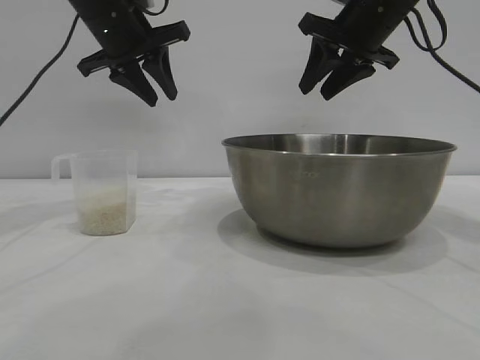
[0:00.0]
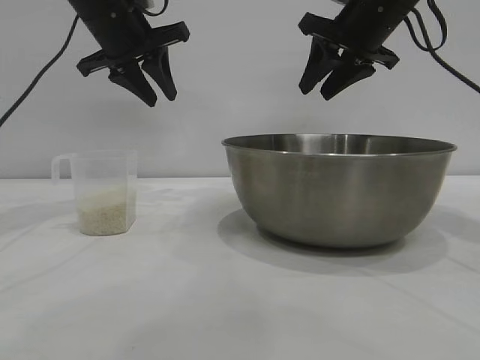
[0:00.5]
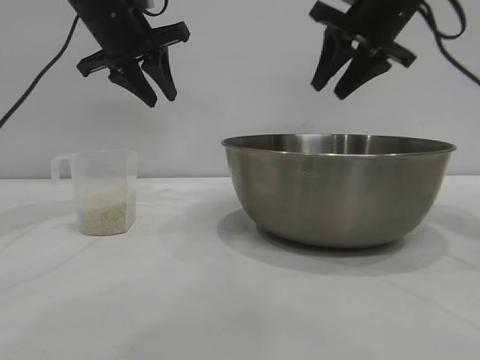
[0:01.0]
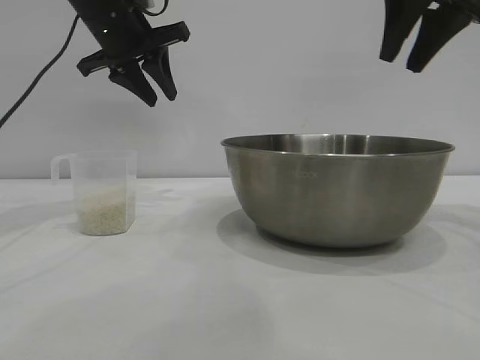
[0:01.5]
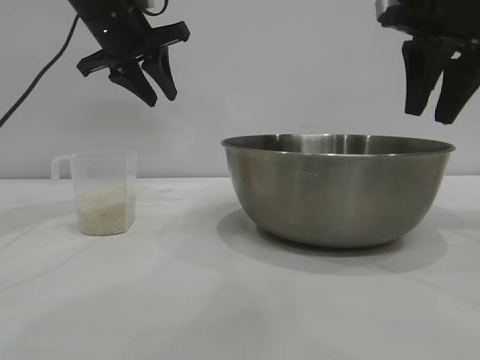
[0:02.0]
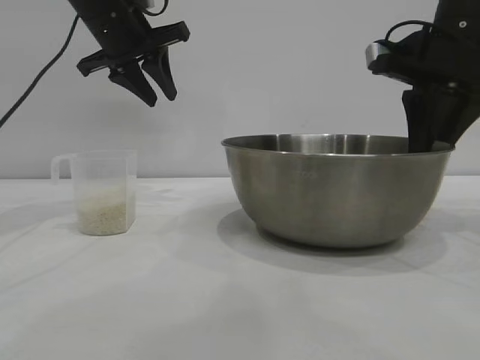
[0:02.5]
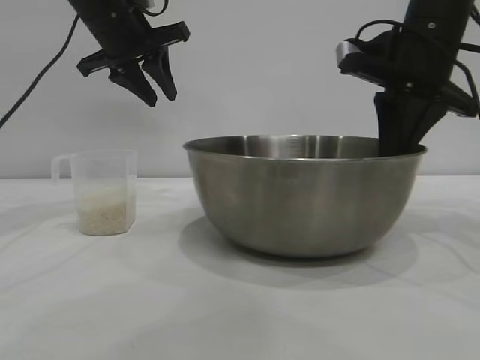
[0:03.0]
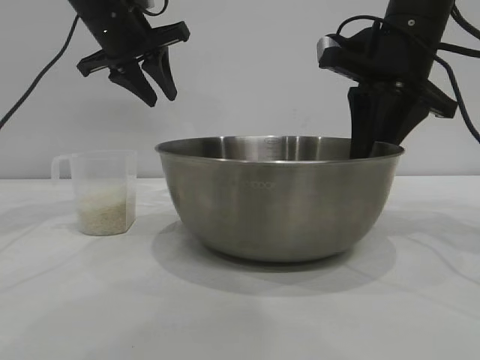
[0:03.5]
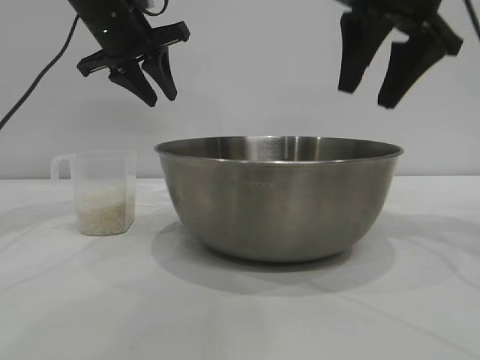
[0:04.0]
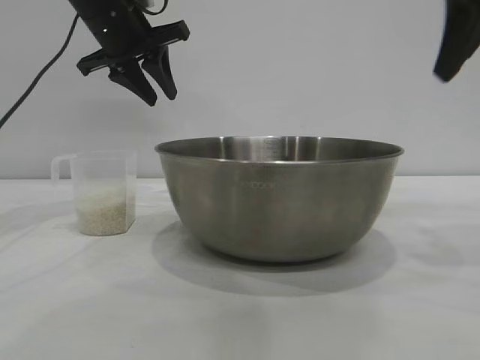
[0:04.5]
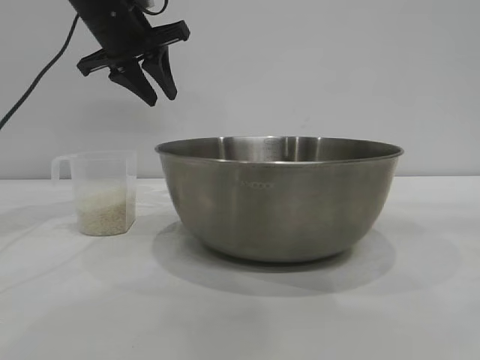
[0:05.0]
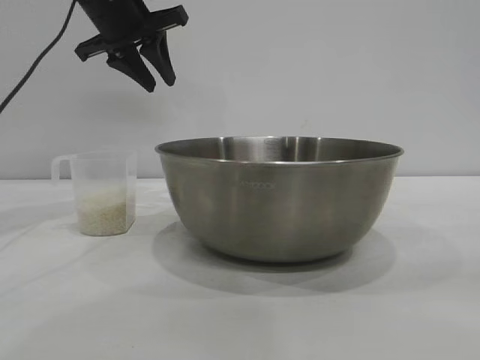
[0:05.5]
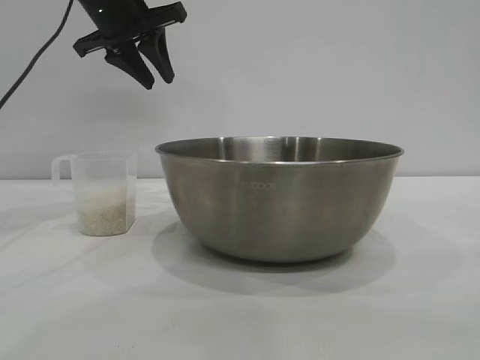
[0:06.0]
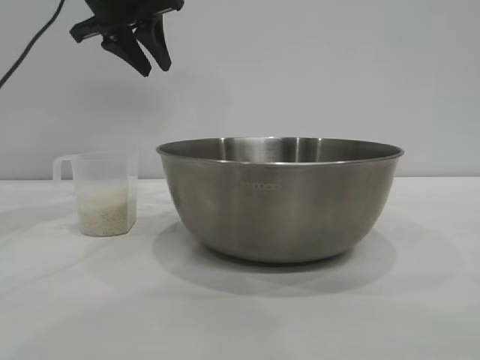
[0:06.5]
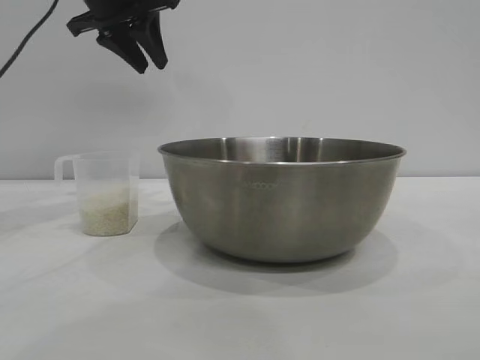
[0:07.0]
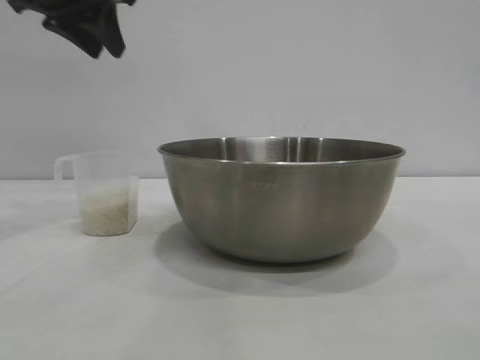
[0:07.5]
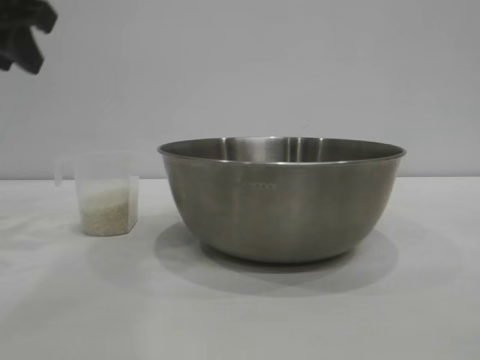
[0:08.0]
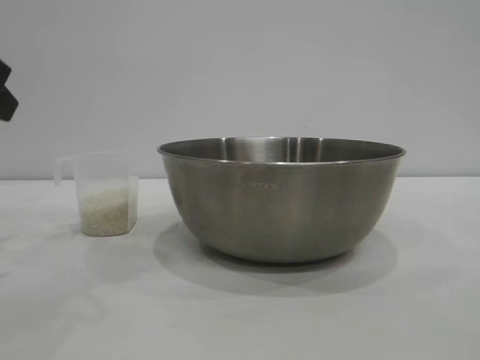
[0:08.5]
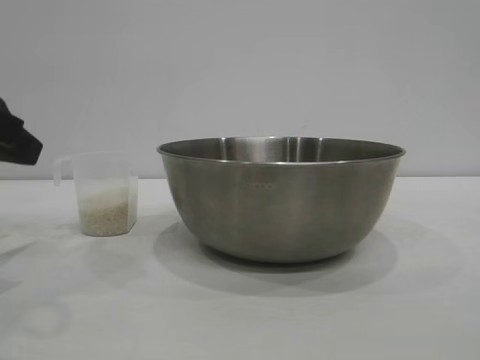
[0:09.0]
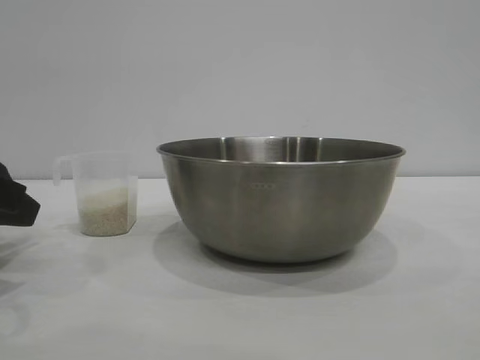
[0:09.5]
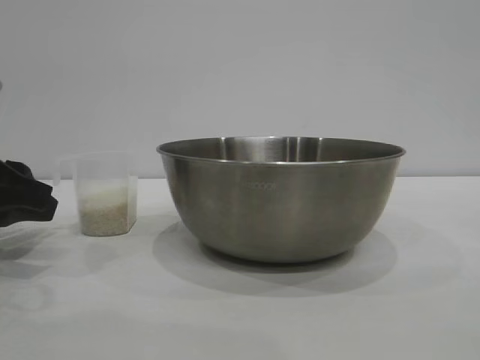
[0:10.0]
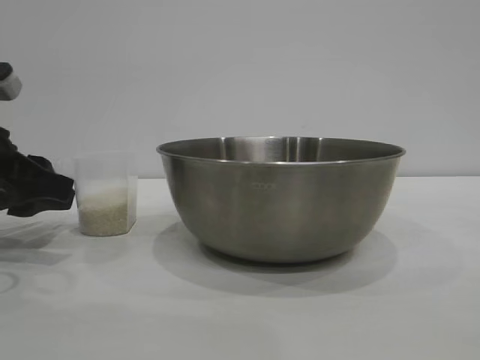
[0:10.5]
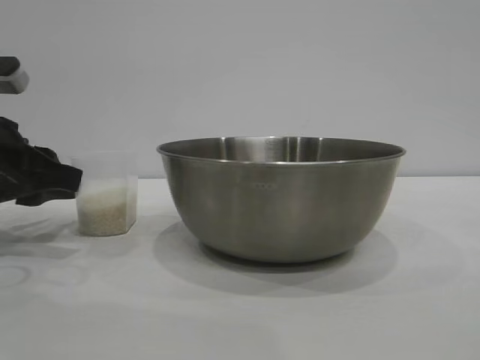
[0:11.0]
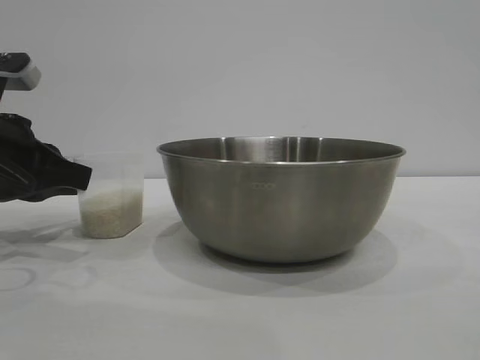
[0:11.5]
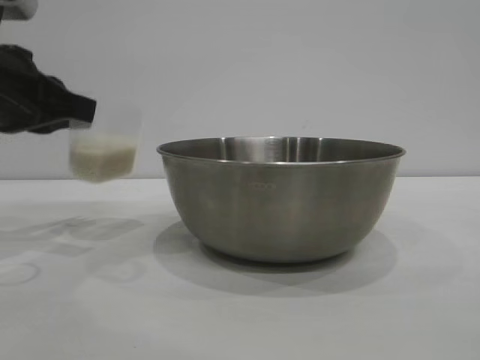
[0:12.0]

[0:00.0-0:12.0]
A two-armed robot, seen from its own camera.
Task of the whole recording: the right gripper grasp the rice container and place it in the center of the table, the left gripper grasp the rice scoop and pour the rice into the rice container.
Step, 0.0 to 4.0 s: Move the bowl to the center of view with the right gripper.

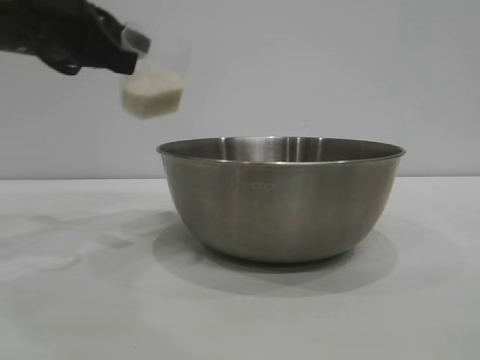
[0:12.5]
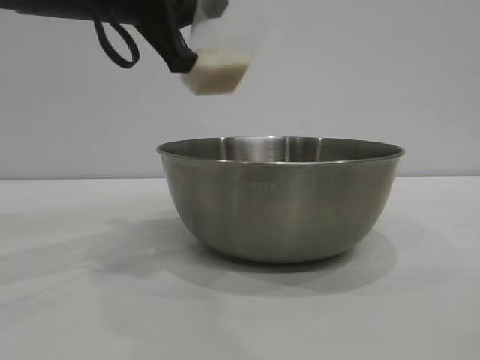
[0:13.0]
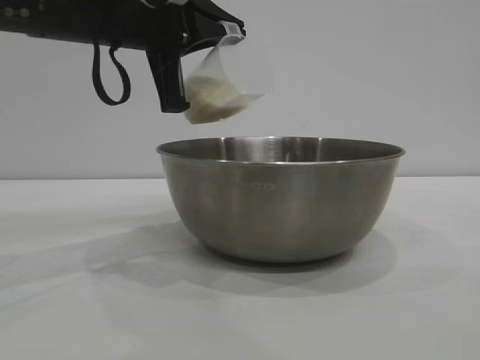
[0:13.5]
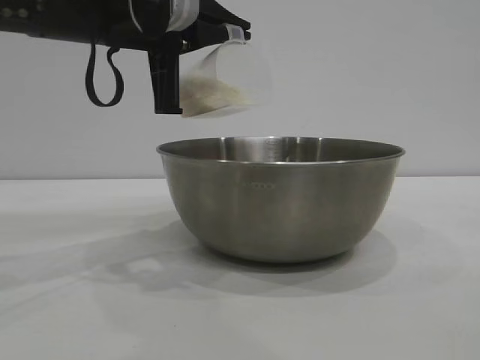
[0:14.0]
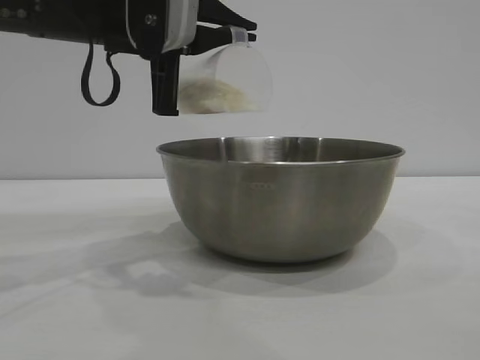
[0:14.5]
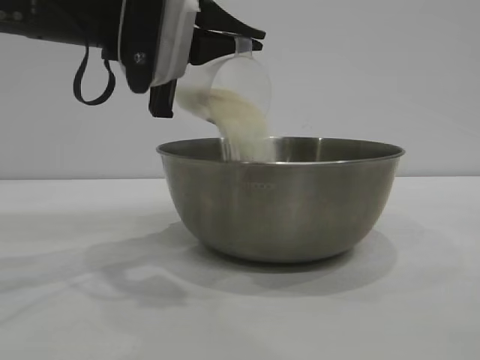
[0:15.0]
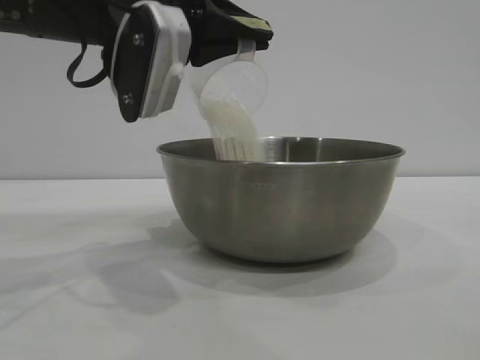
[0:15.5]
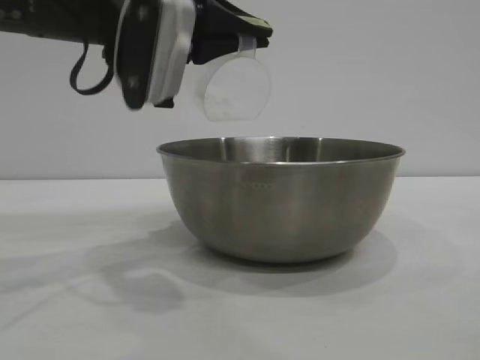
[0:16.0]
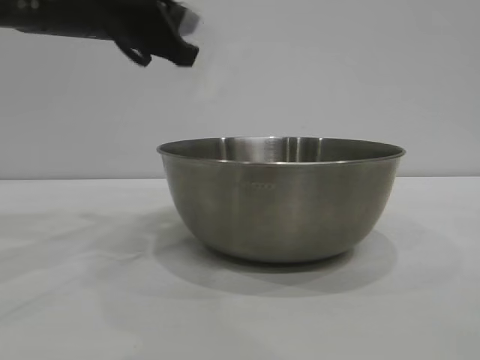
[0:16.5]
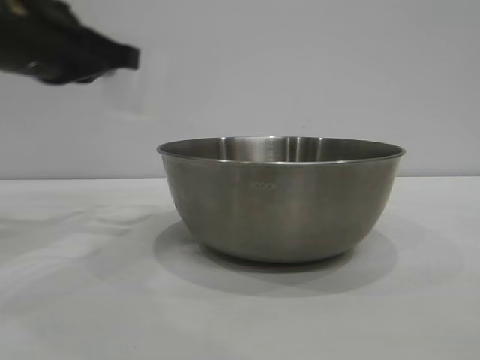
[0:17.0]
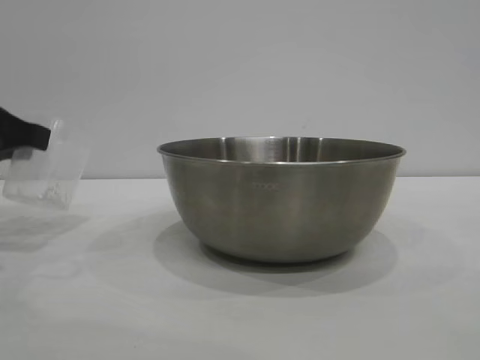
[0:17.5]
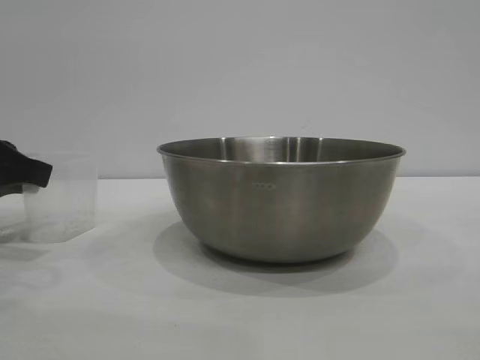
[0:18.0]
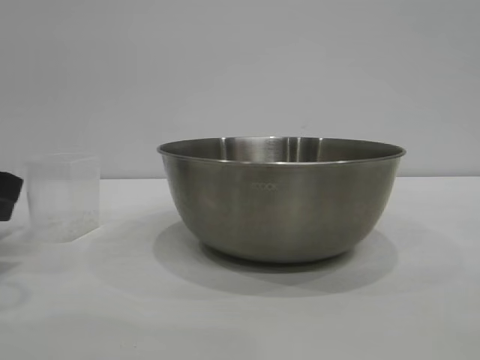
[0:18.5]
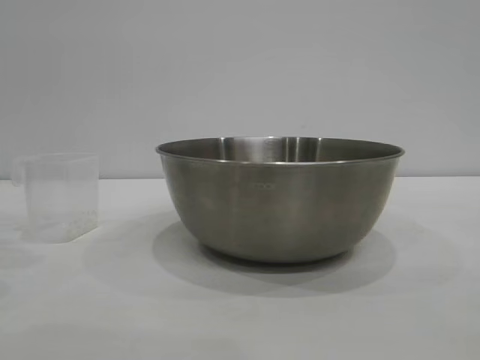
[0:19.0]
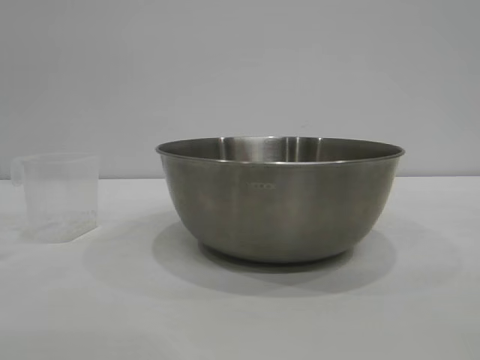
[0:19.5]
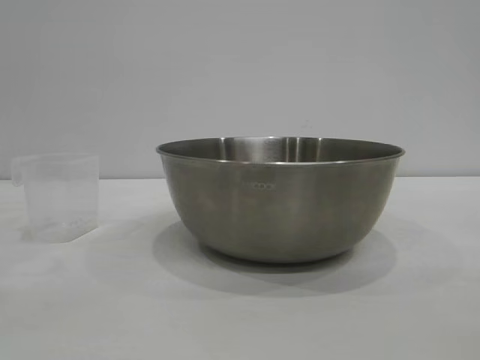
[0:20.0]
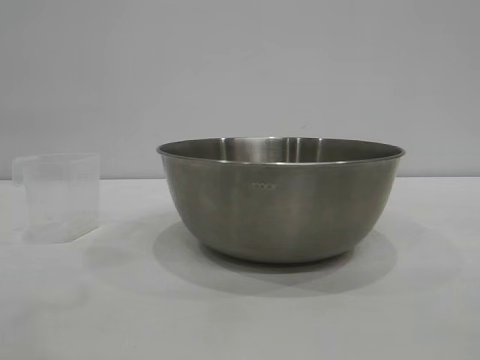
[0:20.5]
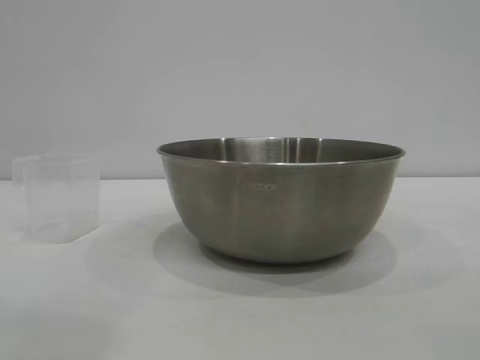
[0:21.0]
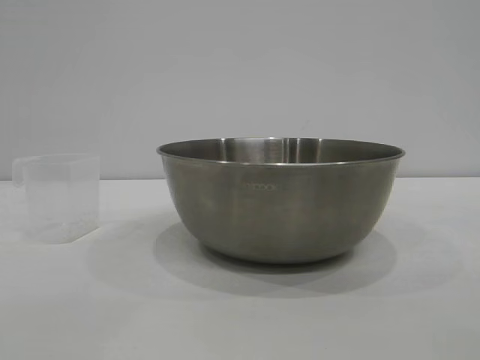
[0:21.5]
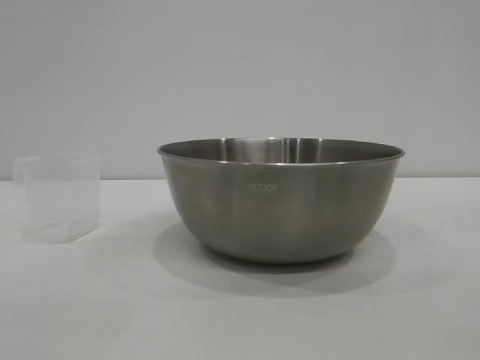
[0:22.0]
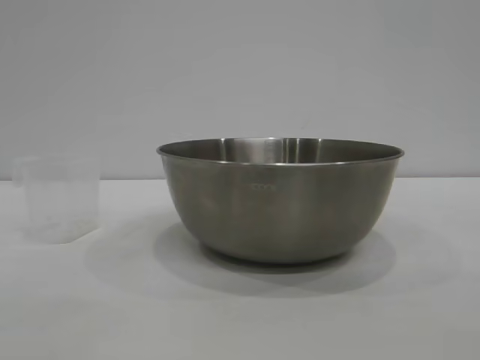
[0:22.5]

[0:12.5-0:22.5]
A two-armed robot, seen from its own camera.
Task of the whole recording: the right gripper grasp the rice container and place it in the center of the table, the left gripper grasp the rice scoop and pour the rice into the rice container.
Step, 12.5 to 16.0 s: Pour the rice from the cup into the bowl with the left gripper.
Step, 16.5 to 18.5 s: Place the cup on the table with the left gripper.

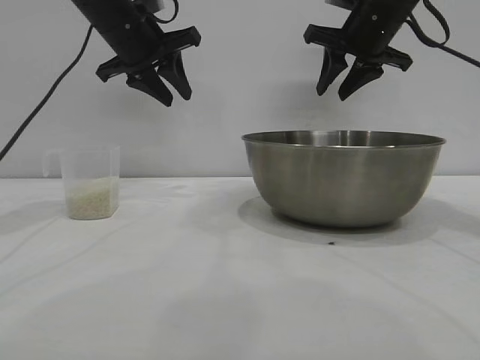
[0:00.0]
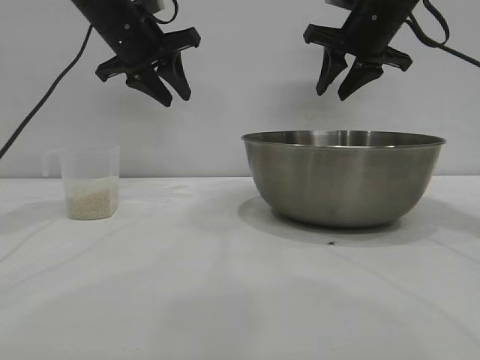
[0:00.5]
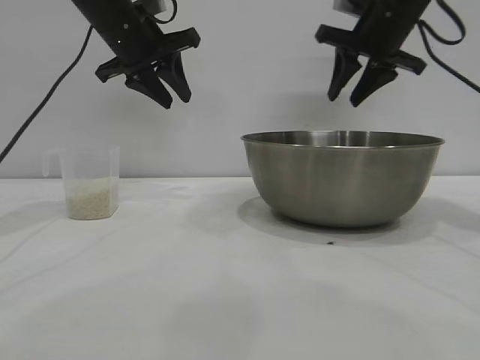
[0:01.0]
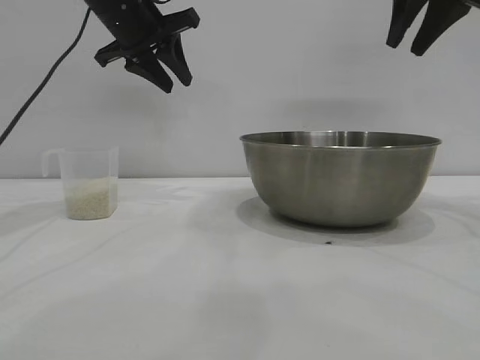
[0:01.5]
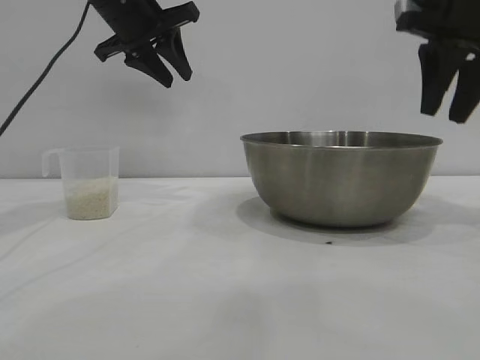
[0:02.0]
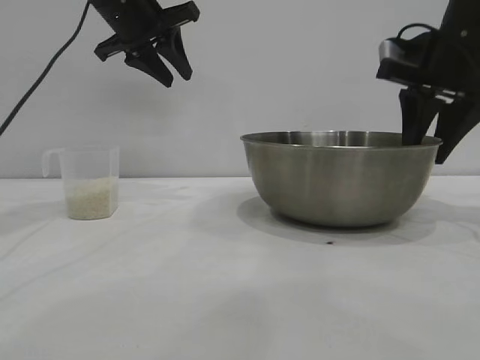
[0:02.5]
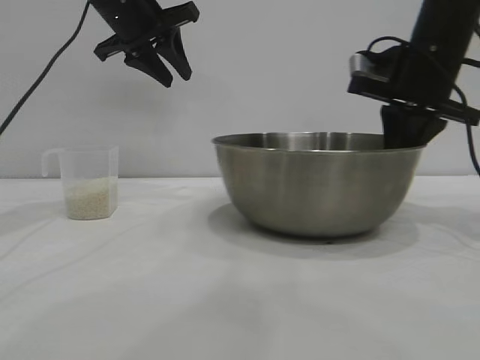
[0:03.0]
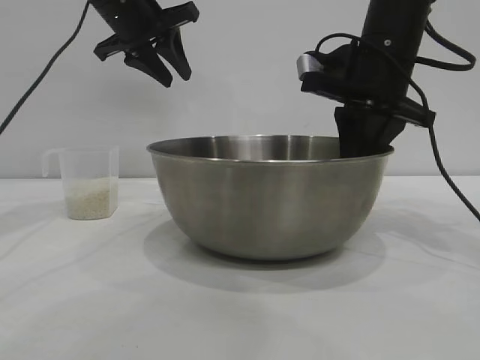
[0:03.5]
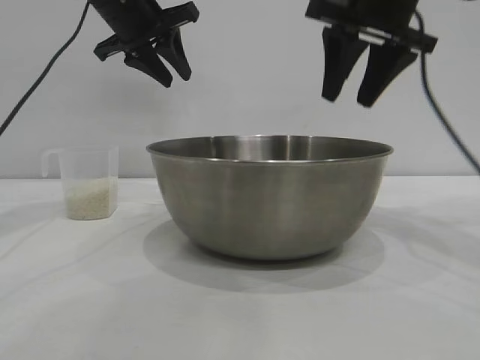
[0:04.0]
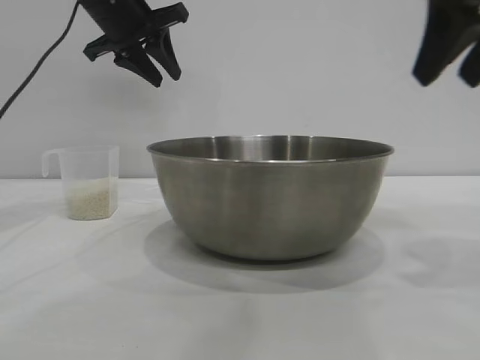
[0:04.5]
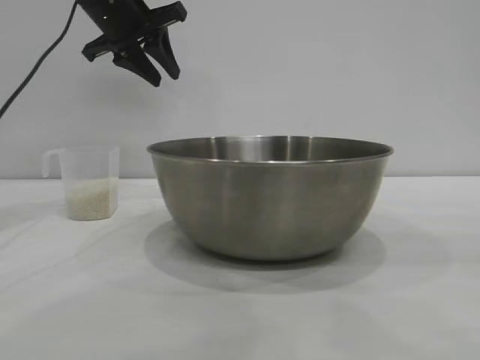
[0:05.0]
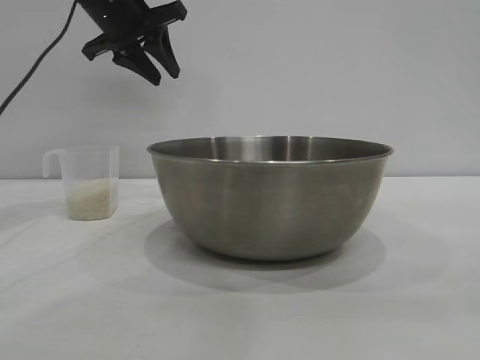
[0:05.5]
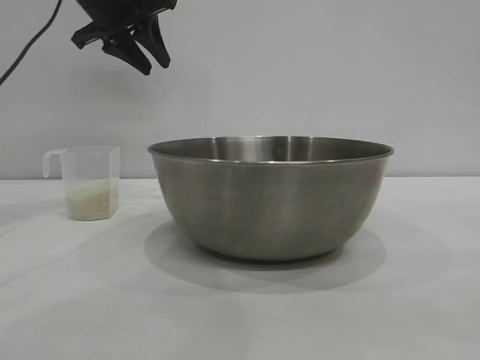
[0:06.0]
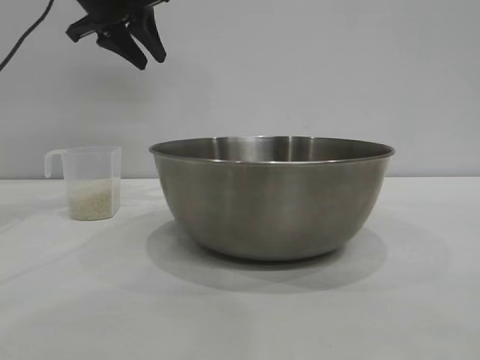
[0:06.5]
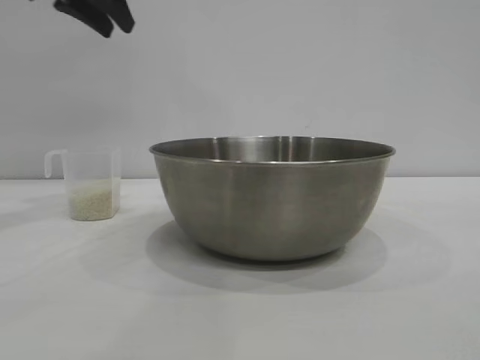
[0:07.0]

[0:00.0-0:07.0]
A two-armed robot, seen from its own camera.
Task of the whole recording: the right gripper grasp the rice container and place it in the center of the table, the left gripper grasp the rice scoop and pour the rice into the rice container.
Step, 0.0 to 3.5 s: Move the bowl to the center of view with the right gripper.
